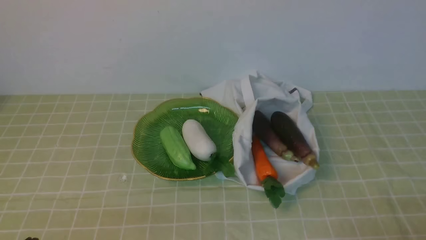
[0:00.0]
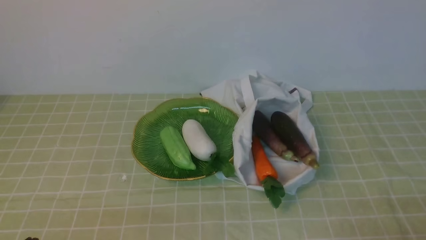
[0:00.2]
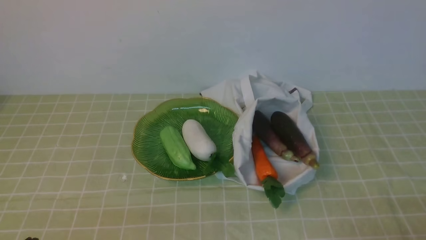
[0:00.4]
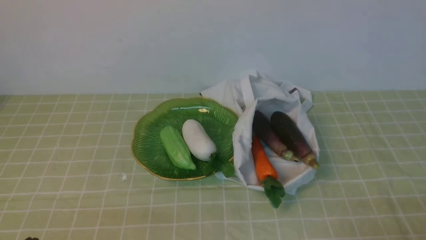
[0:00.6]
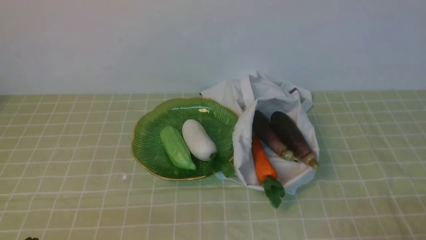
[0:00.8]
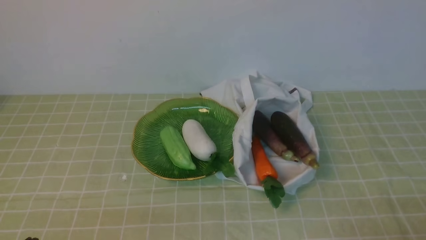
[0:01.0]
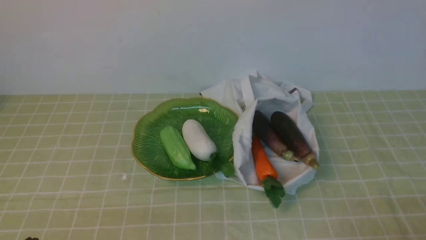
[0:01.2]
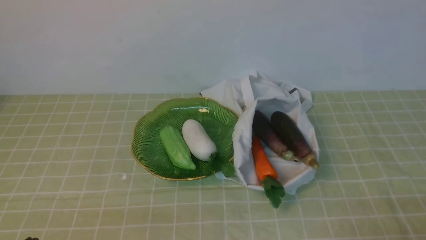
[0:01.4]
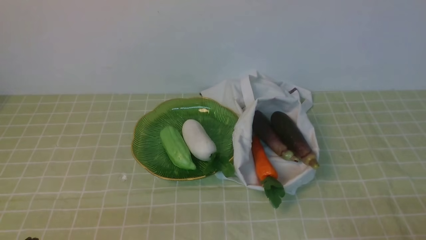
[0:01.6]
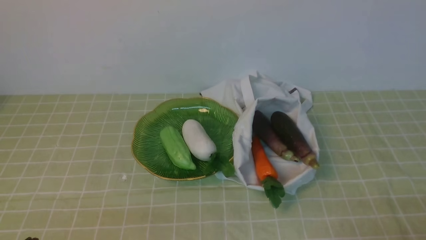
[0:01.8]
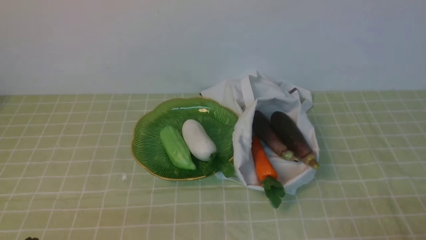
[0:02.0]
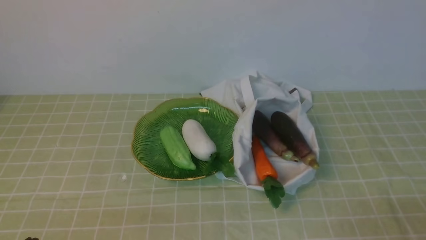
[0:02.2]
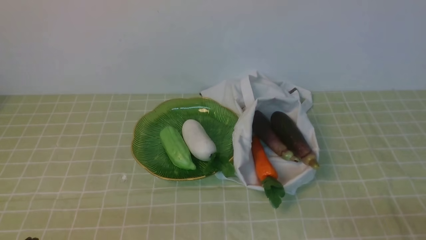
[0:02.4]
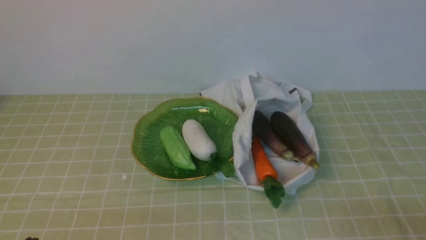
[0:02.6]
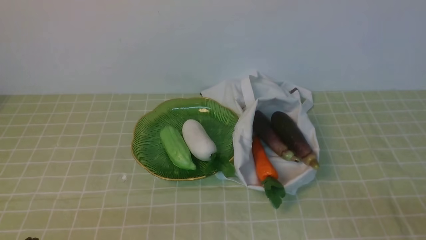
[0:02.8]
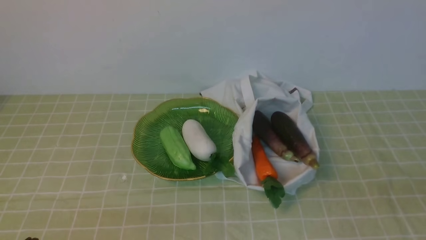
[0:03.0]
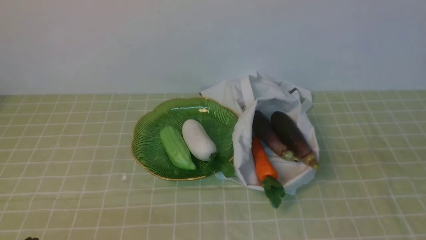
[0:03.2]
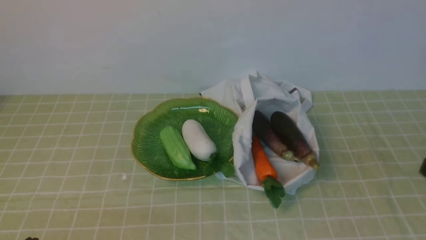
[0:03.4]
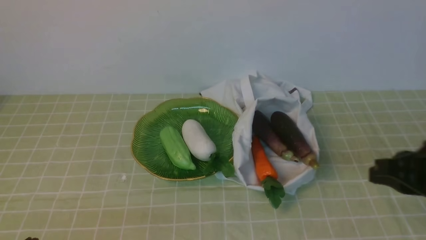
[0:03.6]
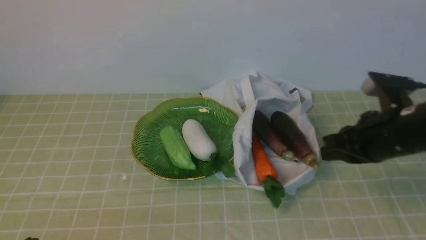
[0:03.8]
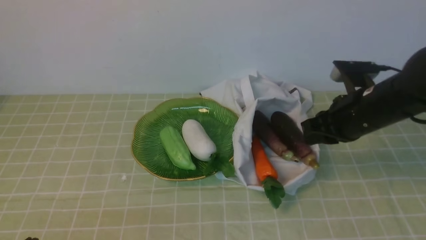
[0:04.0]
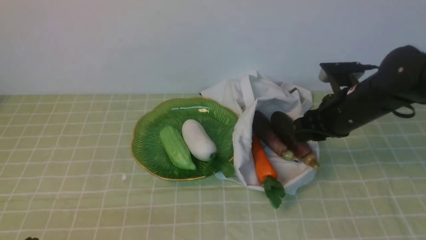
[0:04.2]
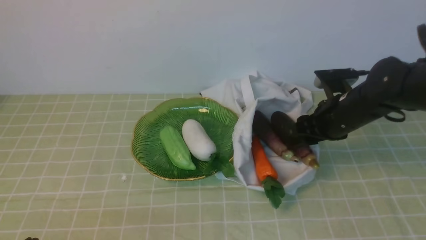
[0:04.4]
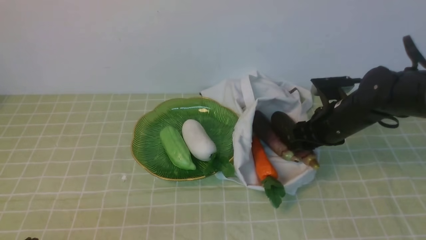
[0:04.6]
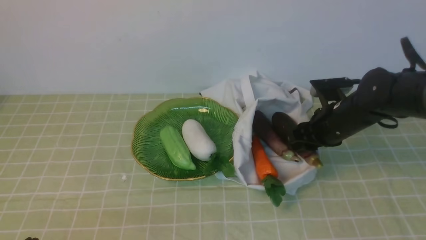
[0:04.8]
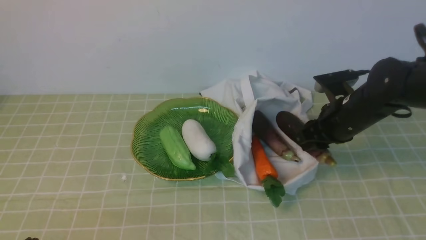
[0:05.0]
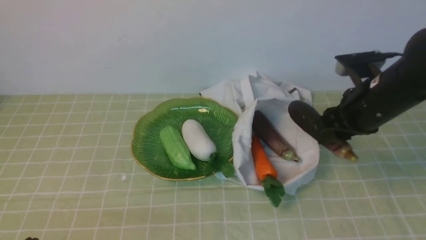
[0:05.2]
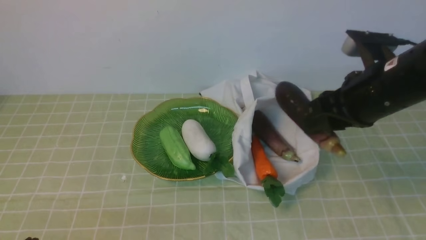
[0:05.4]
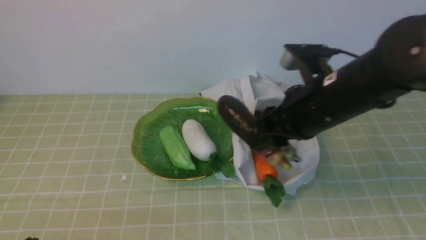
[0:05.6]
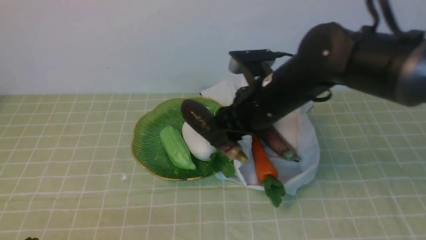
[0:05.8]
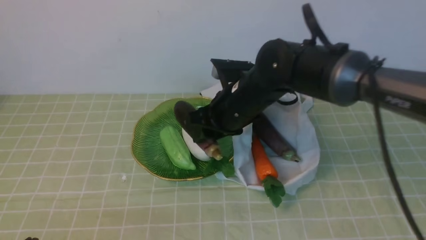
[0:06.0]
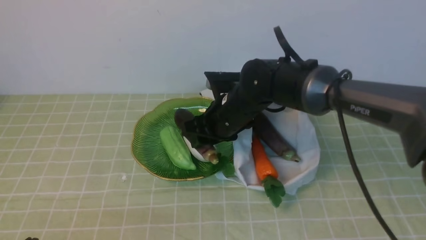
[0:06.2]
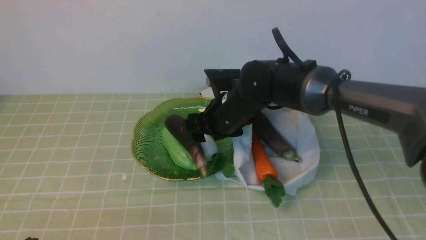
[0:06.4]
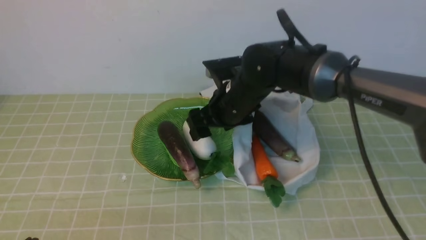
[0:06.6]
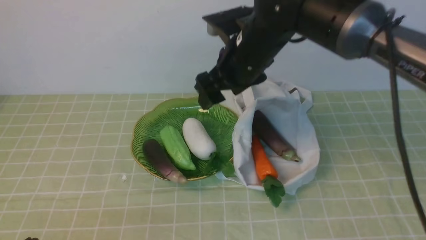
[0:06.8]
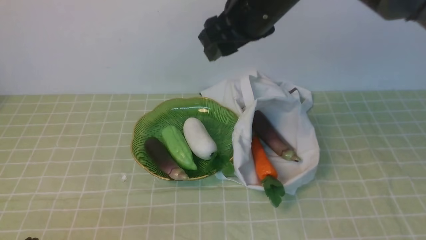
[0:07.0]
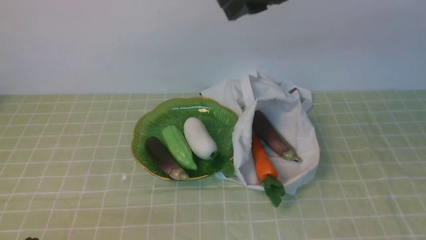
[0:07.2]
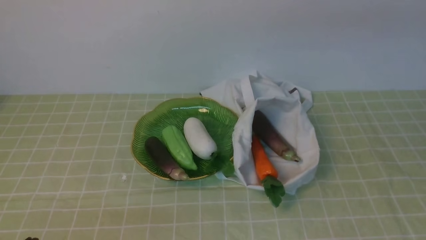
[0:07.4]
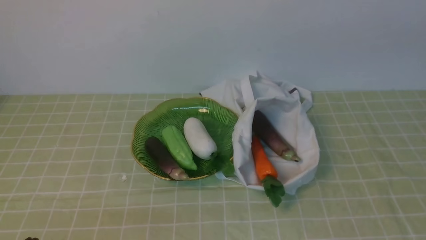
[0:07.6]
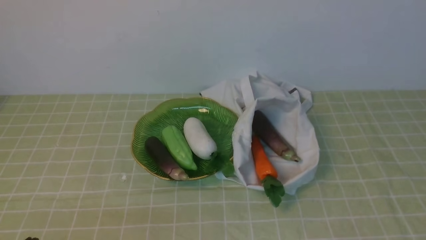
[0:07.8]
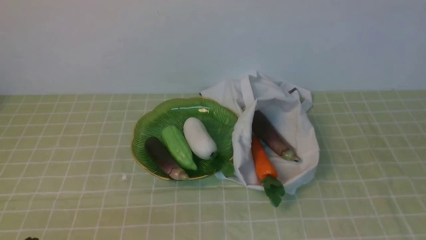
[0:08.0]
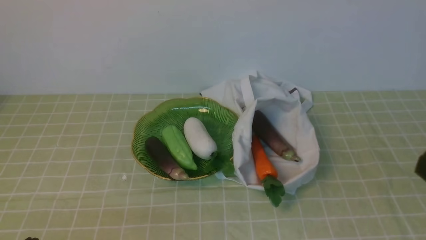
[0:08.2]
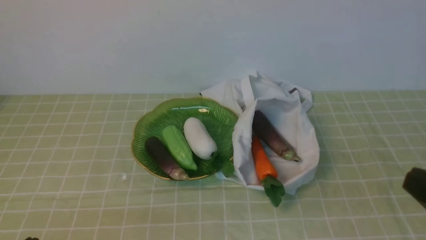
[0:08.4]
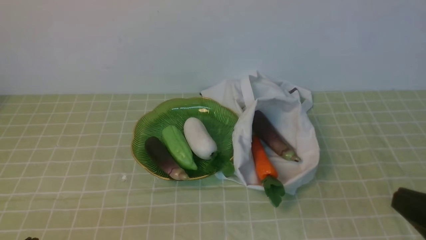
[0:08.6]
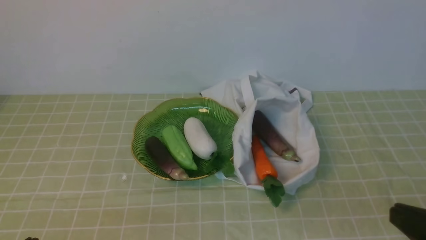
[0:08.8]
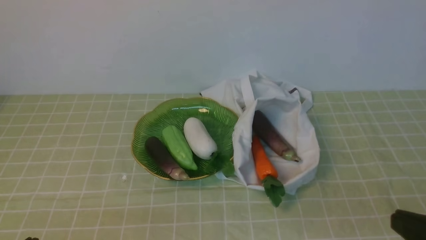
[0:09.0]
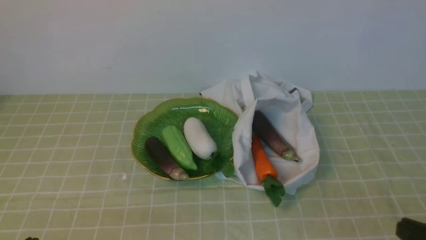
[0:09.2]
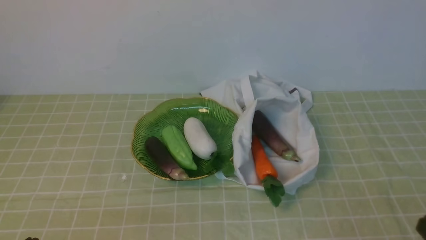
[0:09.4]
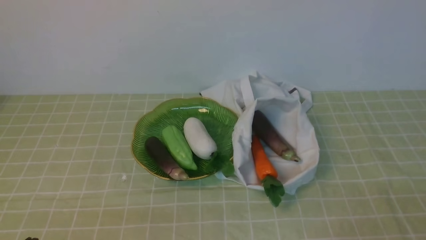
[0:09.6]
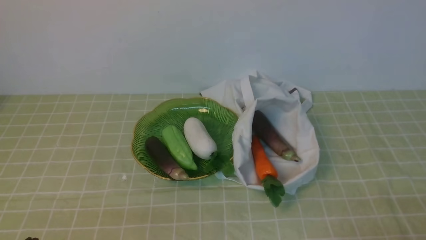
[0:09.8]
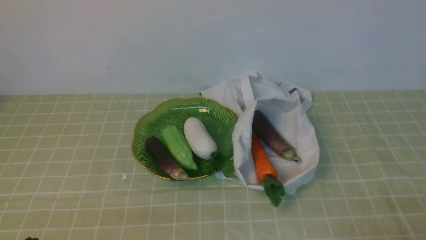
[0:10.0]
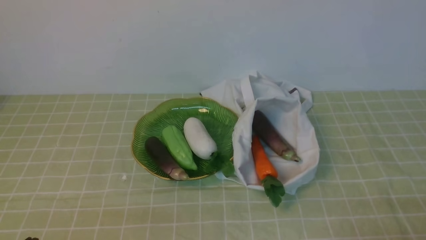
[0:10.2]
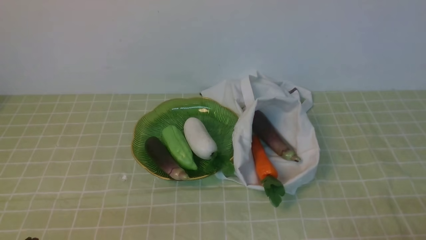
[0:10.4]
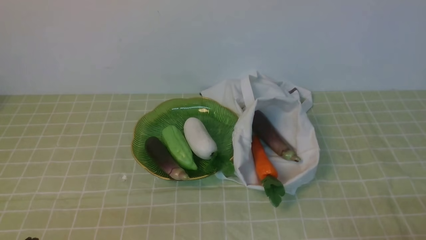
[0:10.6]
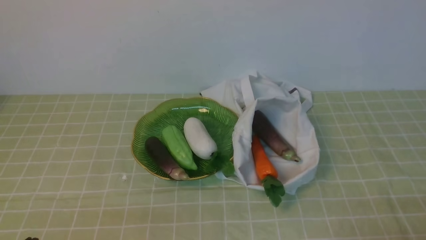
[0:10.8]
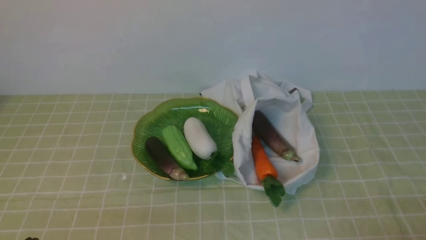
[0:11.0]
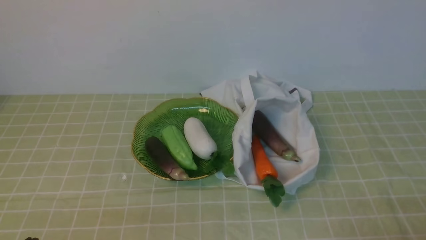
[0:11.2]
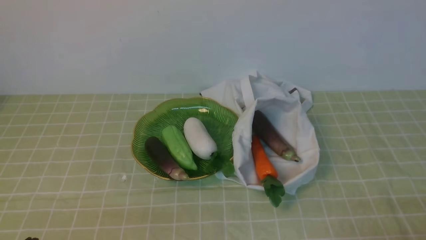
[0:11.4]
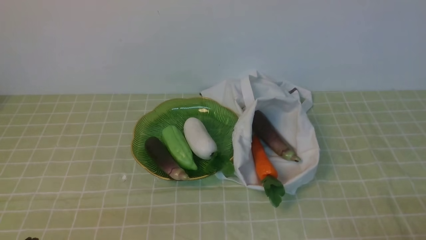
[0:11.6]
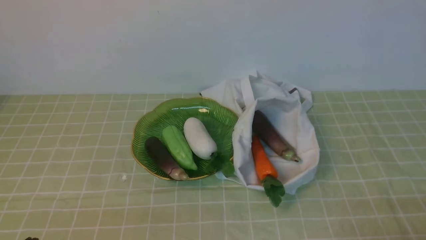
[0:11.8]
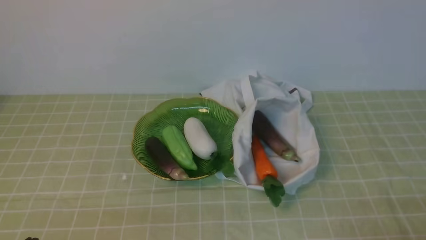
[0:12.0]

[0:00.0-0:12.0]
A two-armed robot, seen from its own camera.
Task of the whole recording: take vegetables from bag on green coffee tablecloth place on plate.
Step, 0:00.0 to 0:04.6: Grasp the eggplant with right gripper.
Step, 0:04.8 to 0:06.4: Place the eggplant on the plate with right gripper.
0:03.0 to 0:04.4: The right gripper is displaced forward by approximately 30 cm, and opens up.
0:04.4 to 0:06.0: The right gripper is displaced to the left by some 15 cm.
0:06.0 to 0:07.6: The right gripper goes approximately 30 cm upward and backward, and closes up.
0:07.6 to 0:09.0: The right gripper shifts about 30 cm downward and backward.
0:09.0 to 0:10.4: The right gripper heads downward, covering approximately 10 cm.
0:10.4 to 0:12.0: Neither gripper changes place.
